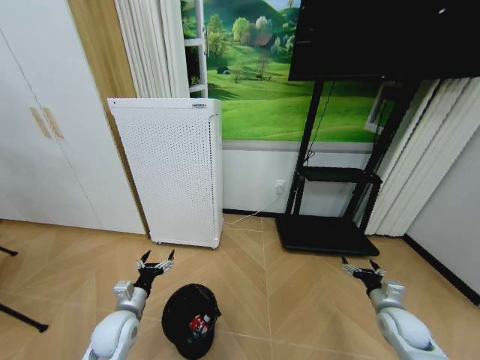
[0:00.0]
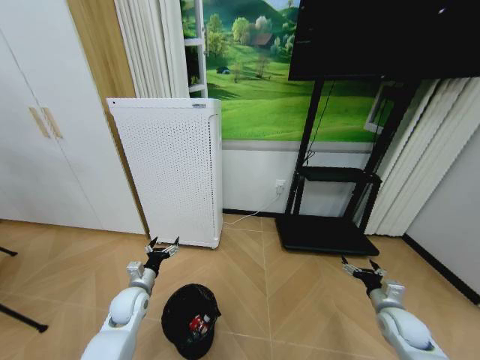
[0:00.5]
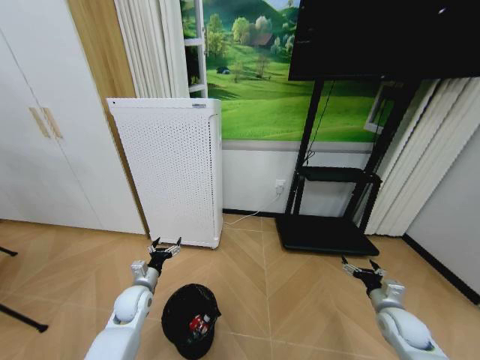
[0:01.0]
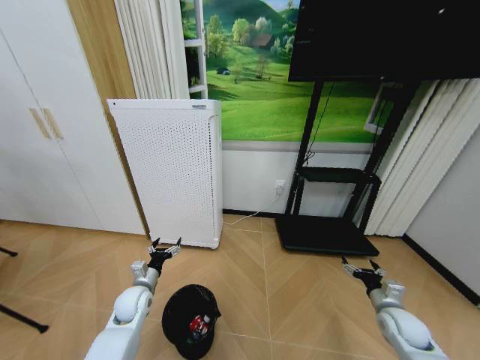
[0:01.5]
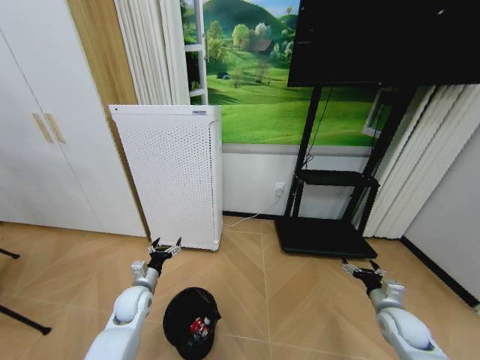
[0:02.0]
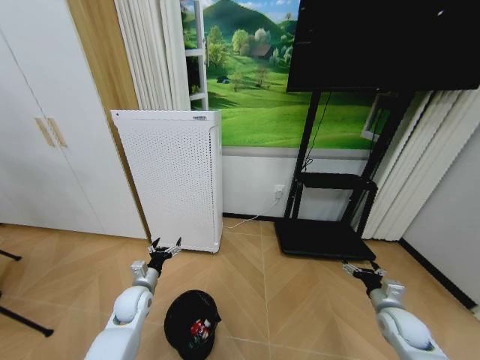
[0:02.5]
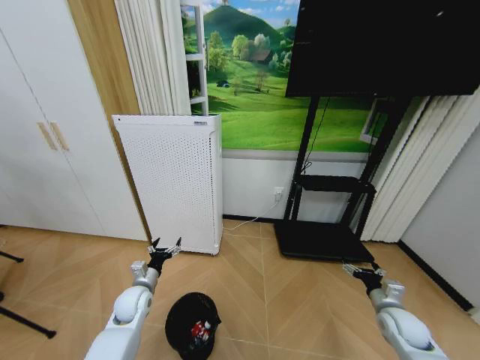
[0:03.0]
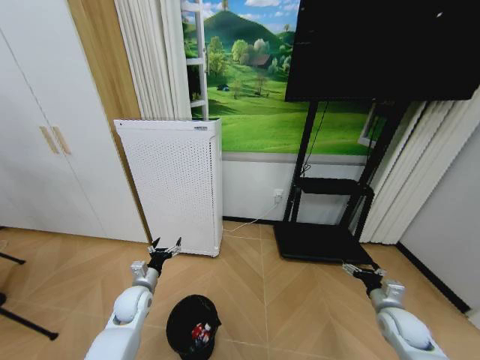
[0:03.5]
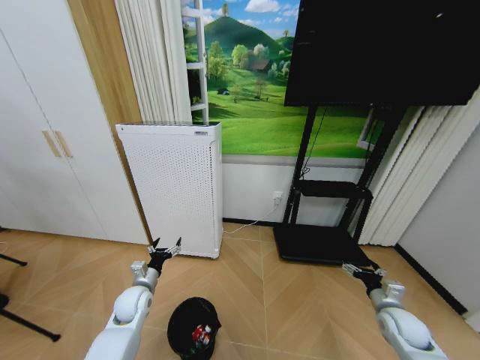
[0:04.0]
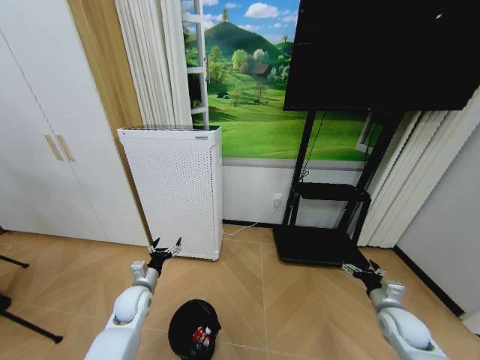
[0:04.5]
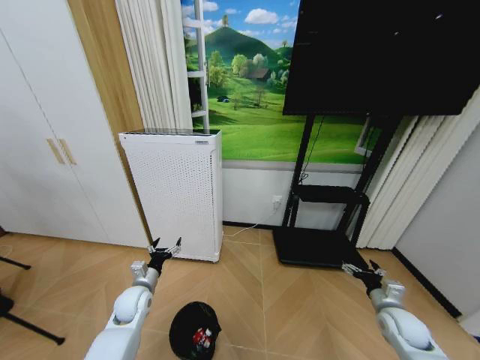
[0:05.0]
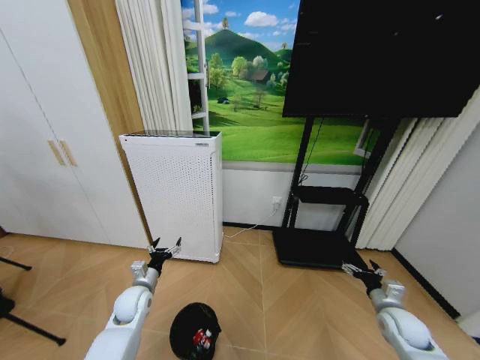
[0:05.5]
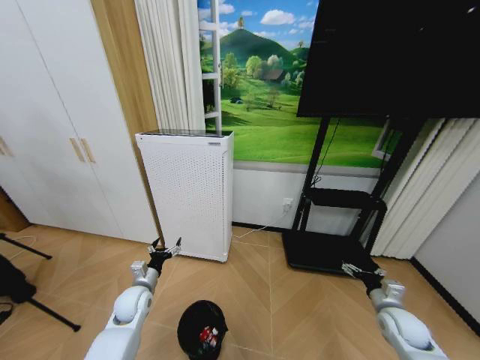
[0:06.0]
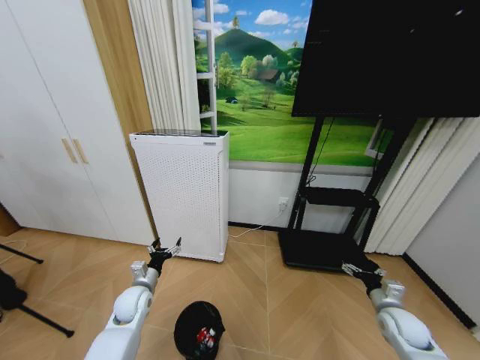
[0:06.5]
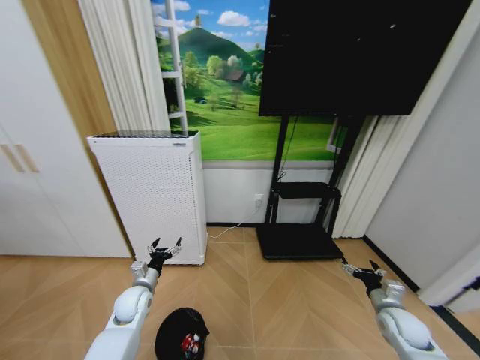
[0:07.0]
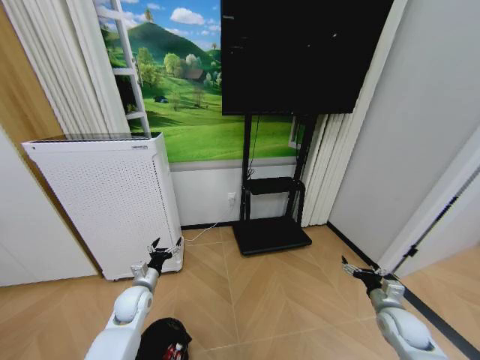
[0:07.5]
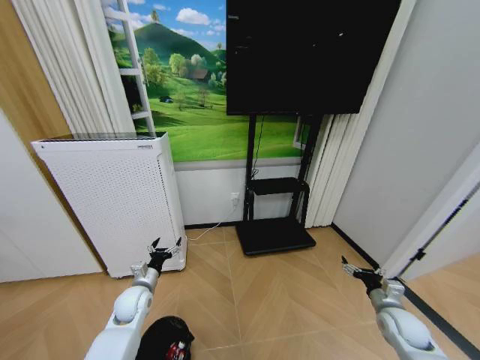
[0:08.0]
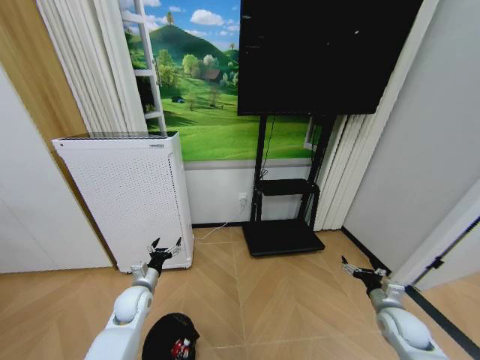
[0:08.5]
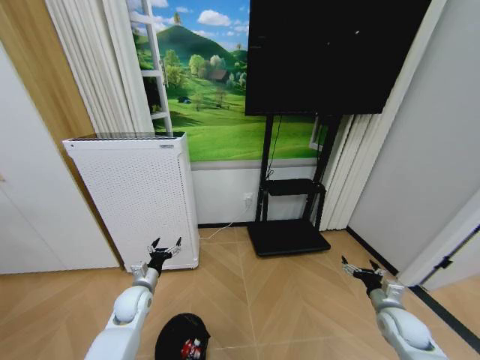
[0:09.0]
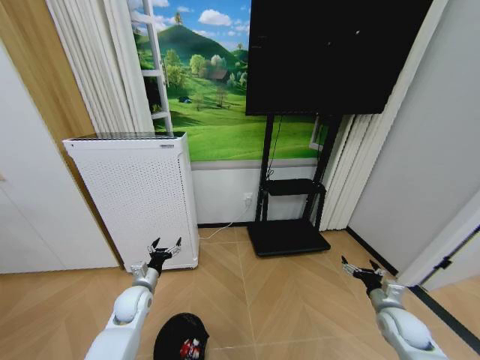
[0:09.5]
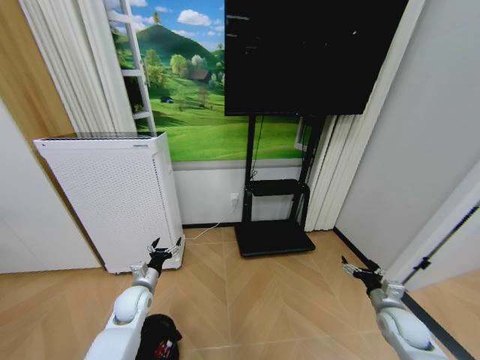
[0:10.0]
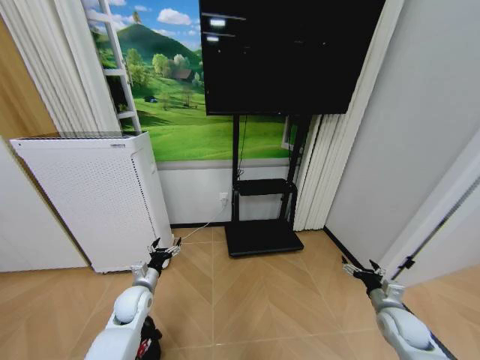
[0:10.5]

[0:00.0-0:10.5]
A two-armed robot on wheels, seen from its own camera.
Task of the whole recording: Pick up the trash bin and place the garbage on the floor into it.
0:00.0 to 0:02.0: The left gripper heads forward, covering approximately 10 cm.
0:02.0 to 0:04.0: Both grippers stay about where they are.

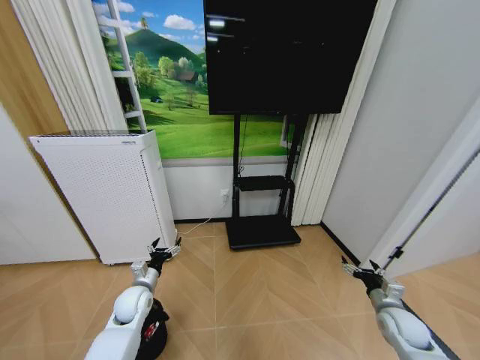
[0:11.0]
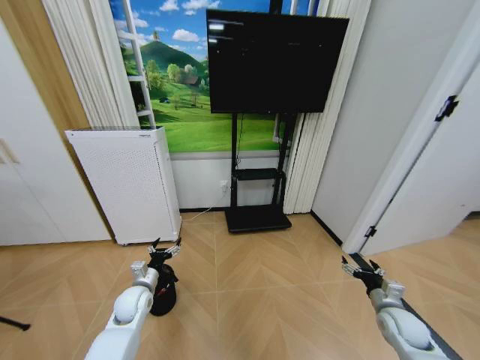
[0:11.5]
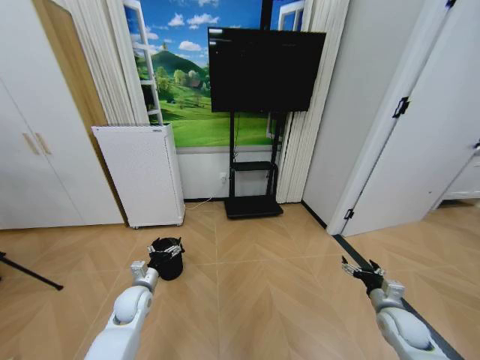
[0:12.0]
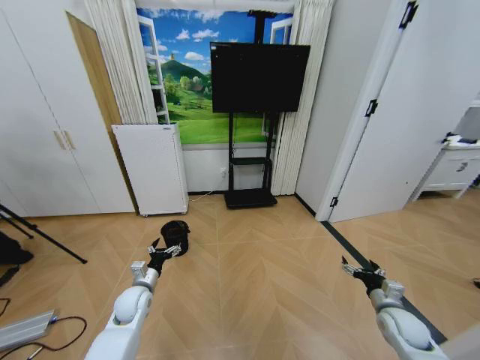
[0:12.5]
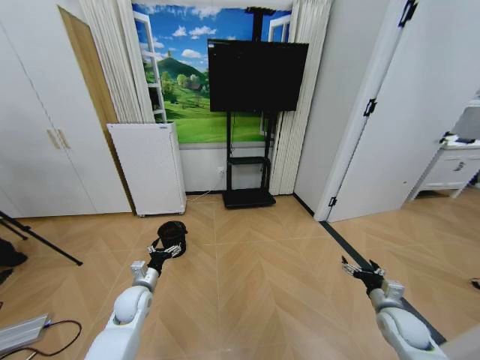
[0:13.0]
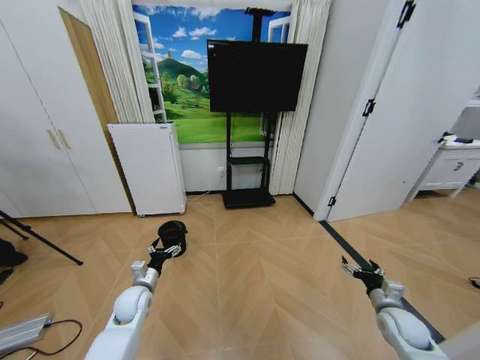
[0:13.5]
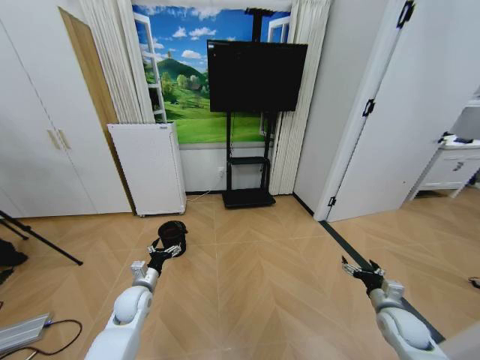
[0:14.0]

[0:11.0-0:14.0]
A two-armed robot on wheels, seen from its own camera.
Task of the whole recording: Pick up the trash bin and place the garbage on the floor into it.
0:12.5 to 0:14.0: Neither gripper changes place.
